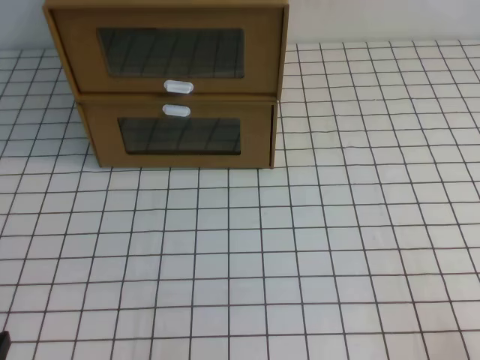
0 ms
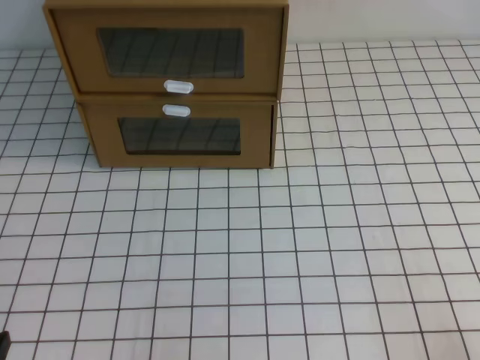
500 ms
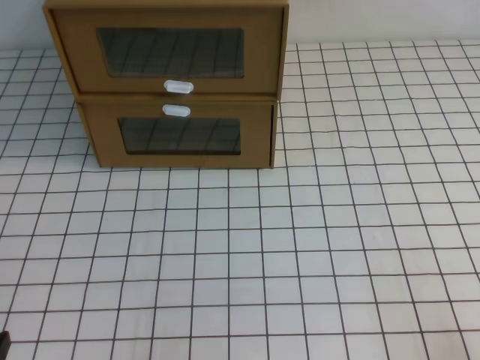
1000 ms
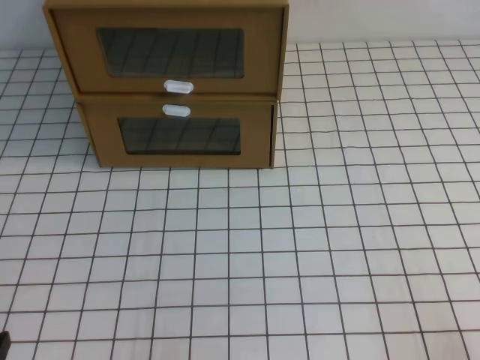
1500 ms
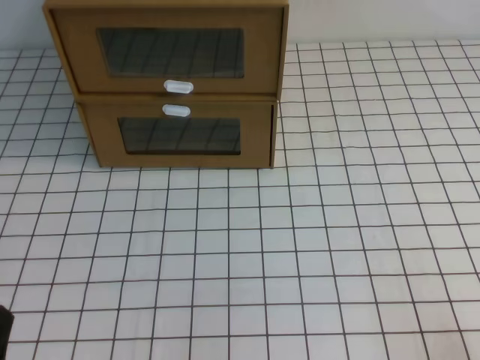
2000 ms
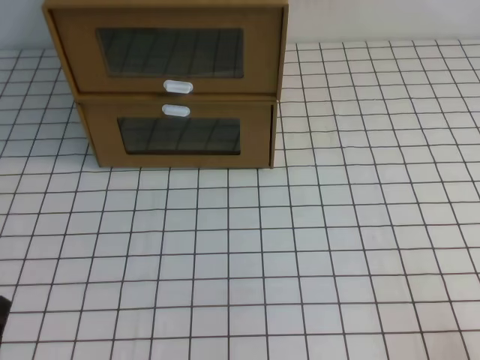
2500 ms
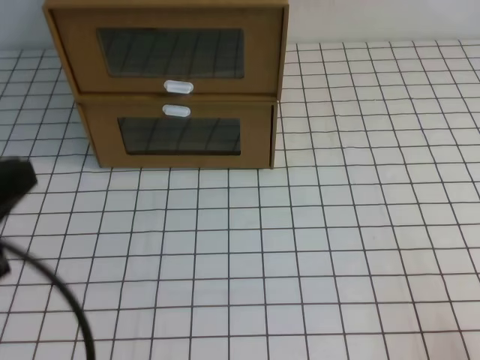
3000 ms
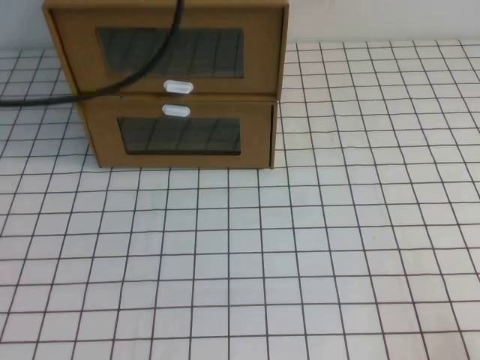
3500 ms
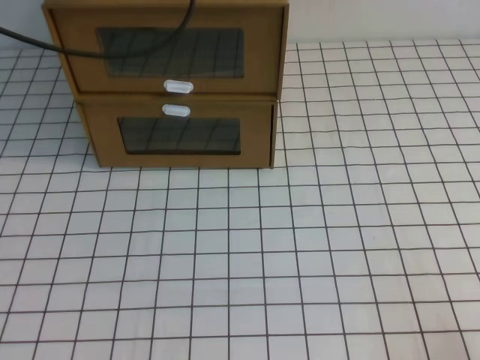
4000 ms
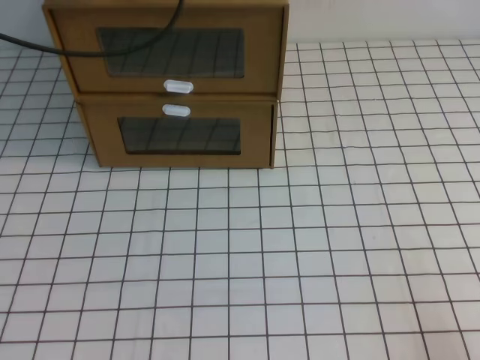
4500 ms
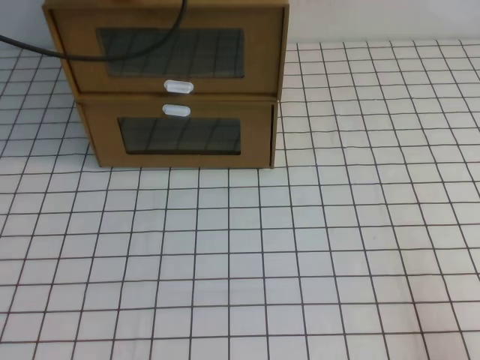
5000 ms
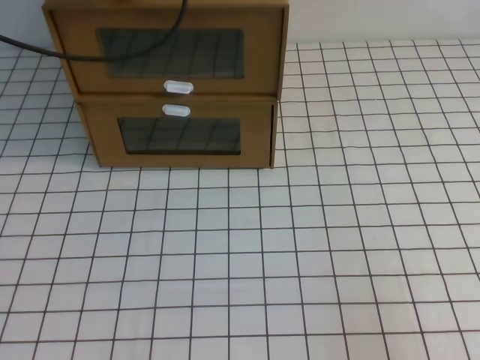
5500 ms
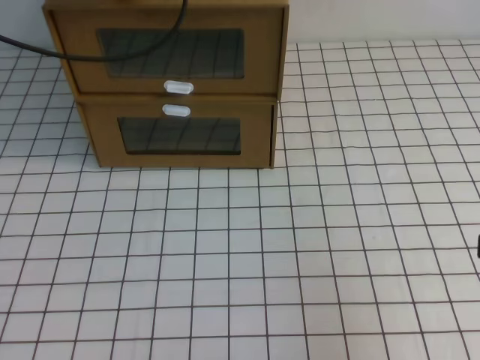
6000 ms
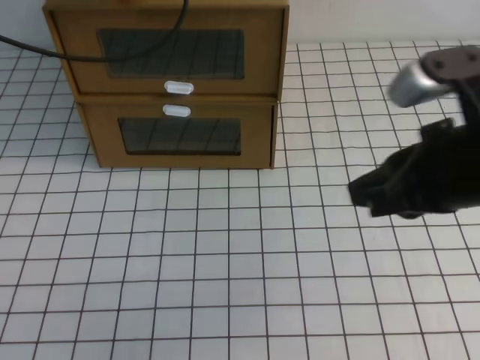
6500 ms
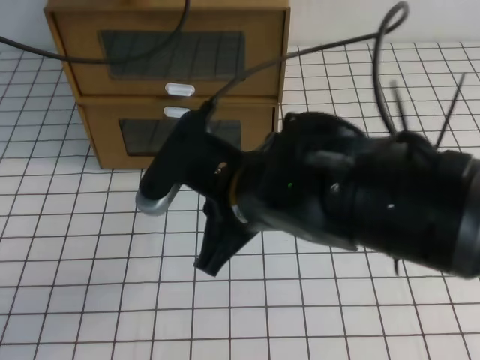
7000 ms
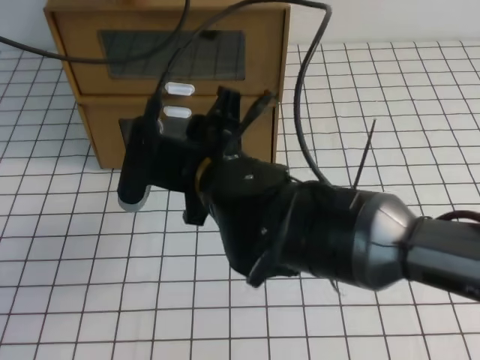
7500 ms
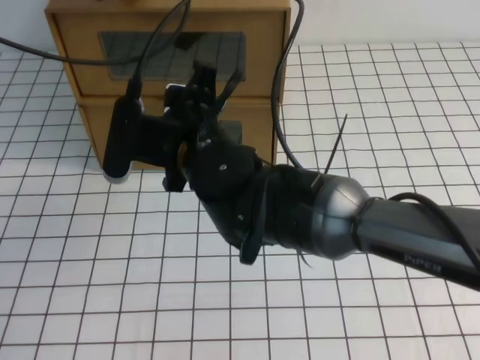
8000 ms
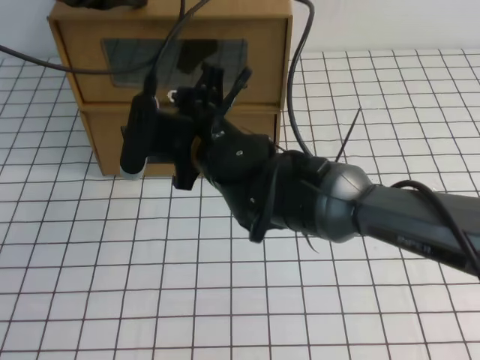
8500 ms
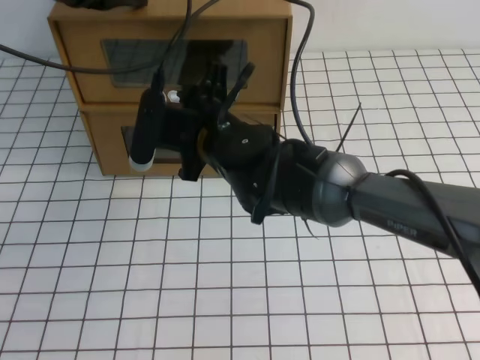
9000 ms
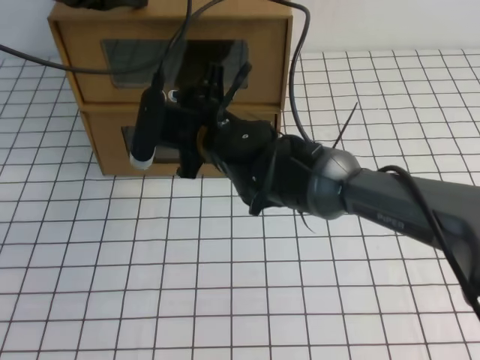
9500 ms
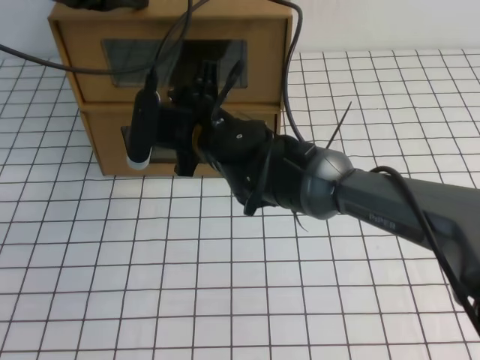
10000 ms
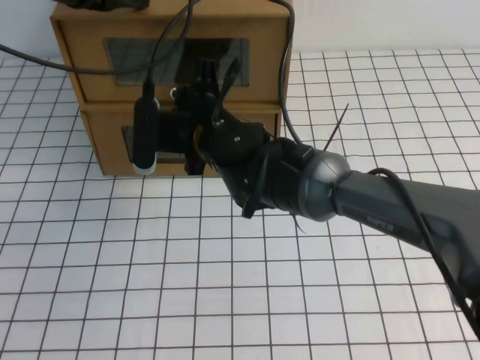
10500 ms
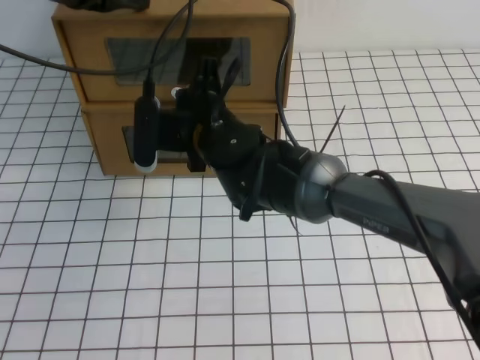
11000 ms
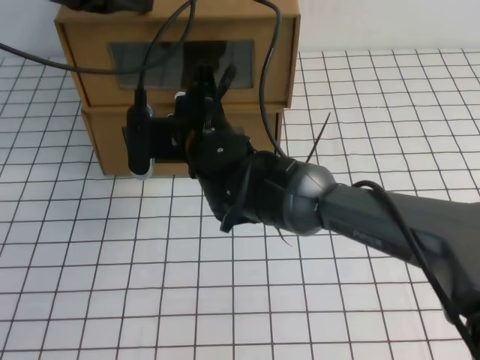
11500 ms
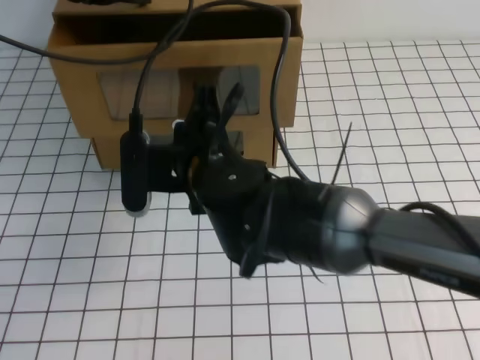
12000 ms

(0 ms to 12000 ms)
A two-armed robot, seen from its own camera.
Task of the whole recording: open the shoebox on the white tablecloth.
2000 ms - 4000 ms: The left gripper shifts some 40 cm forward and upward.
4000 ms - 6000 ms: The right gripper moves upward and forward, about 15 cm; the left gripper changes place by approximately 5 cm.
6000 ms - 8000 ms: The right gripper moves to the left and forward, approximately 35 cm, and opens.
8000 ms - 10000 ms: The right gripper travels forward by roughly 5 cm.
10000 ms - 12000 ms: The right gripper shifts some 10 cm backward, and closes up.

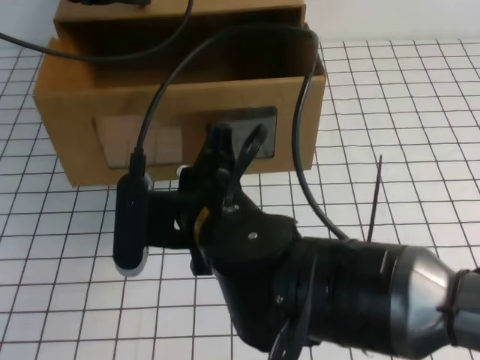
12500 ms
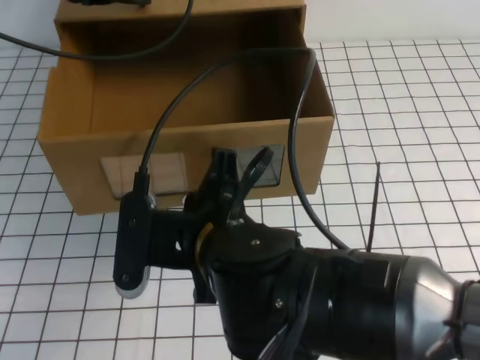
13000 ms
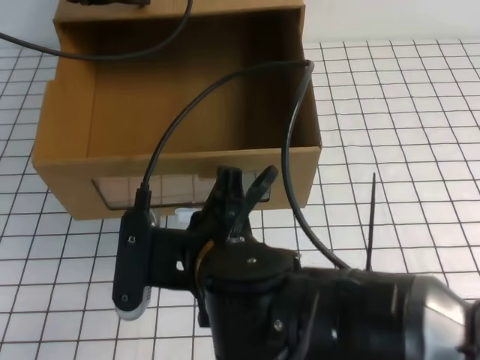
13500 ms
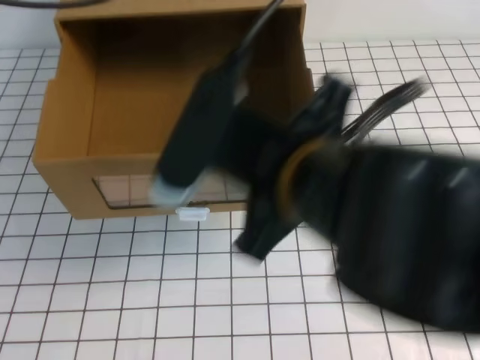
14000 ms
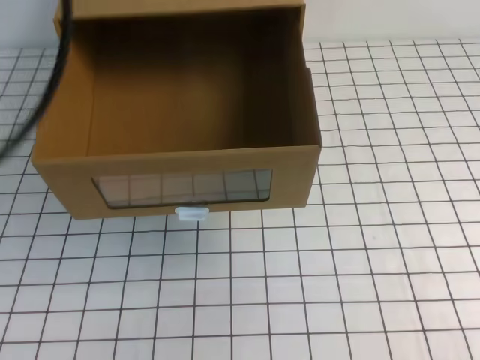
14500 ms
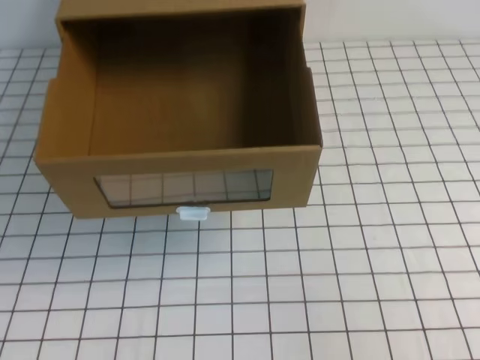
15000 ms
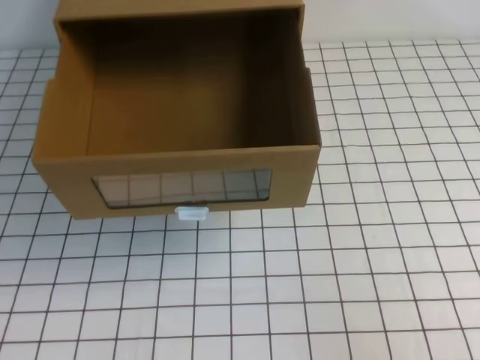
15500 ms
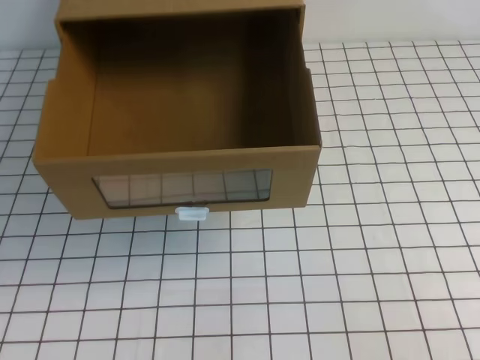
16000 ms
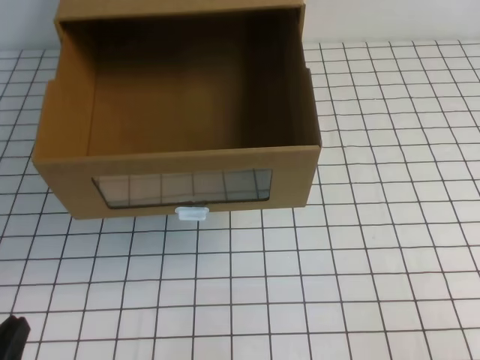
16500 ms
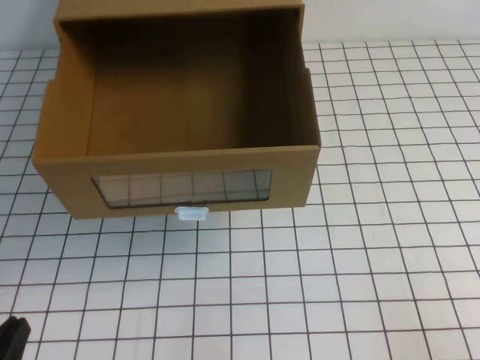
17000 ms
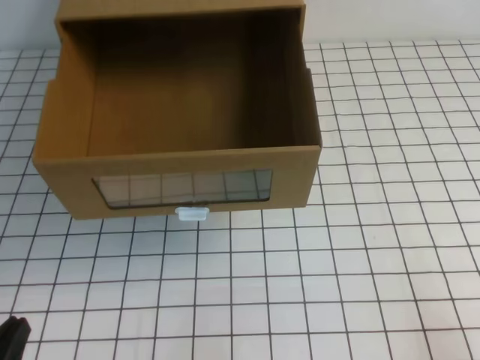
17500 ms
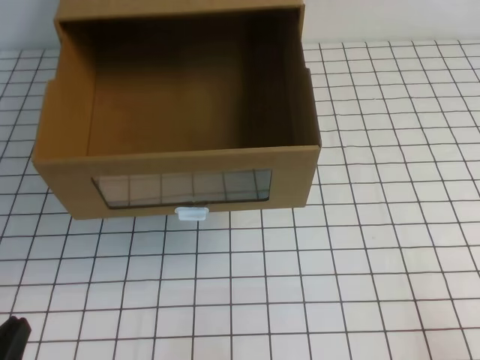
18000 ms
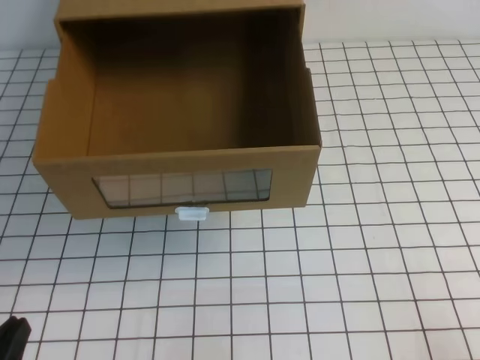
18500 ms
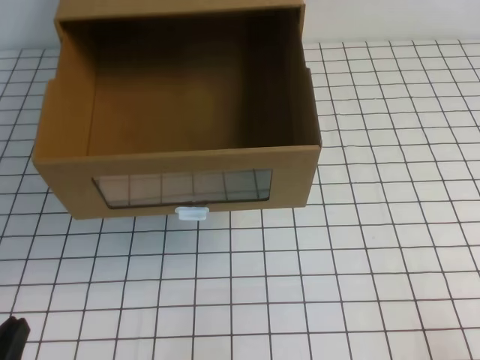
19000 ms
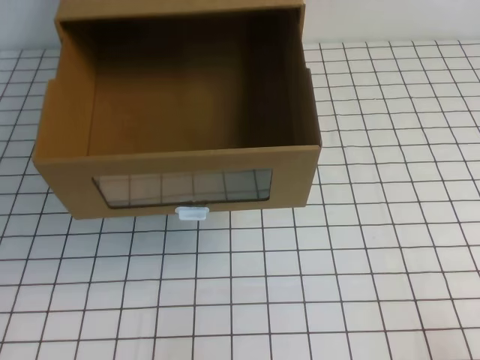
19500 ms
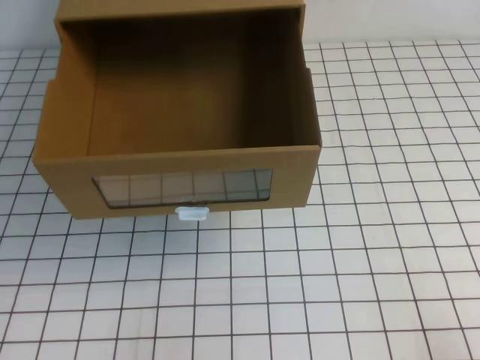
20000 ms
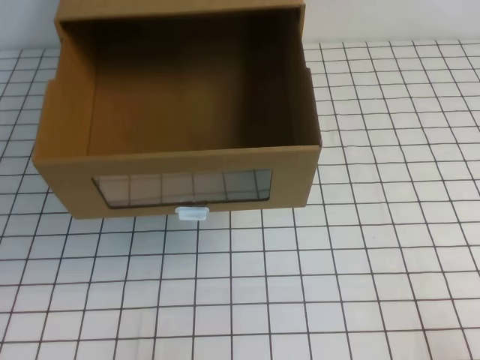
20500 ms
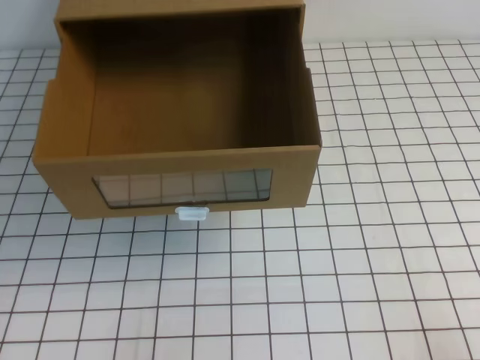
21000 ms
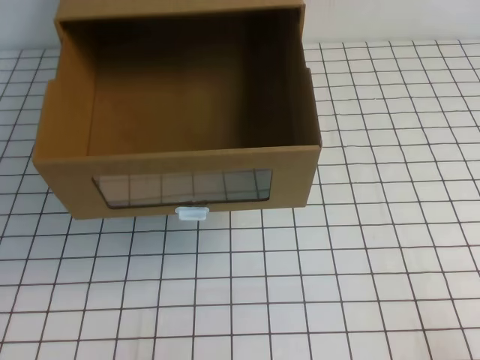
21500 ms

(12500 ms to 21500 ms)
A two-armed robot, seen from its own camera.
Task of the whole recording: open the shoebox on the white tablecloth.
Step, 12500 ms - 21500 ms: Open the shoe box.
12500 ms - 14500 ms: The left gripper is displaced backward and upward by some 30 cm. The right gripper heads to the right and upward, covering about 30 cm.
14500 ms - 17000 ms: The left gripper shifts some 35 cm downward; the right gripper heads downward and backward, covering roughly 25 cm.

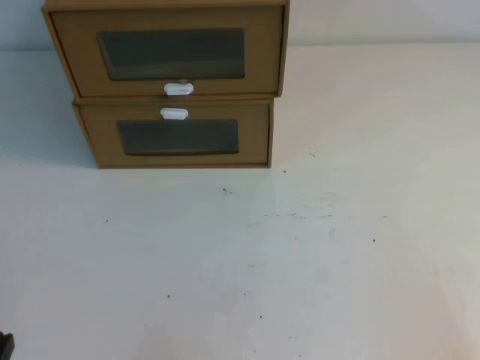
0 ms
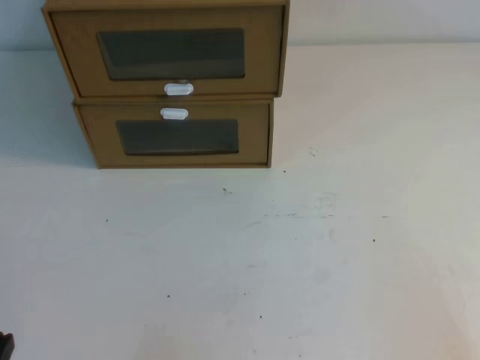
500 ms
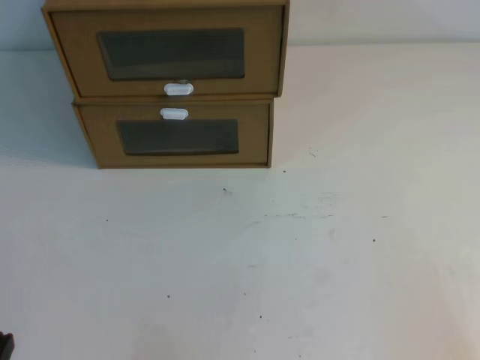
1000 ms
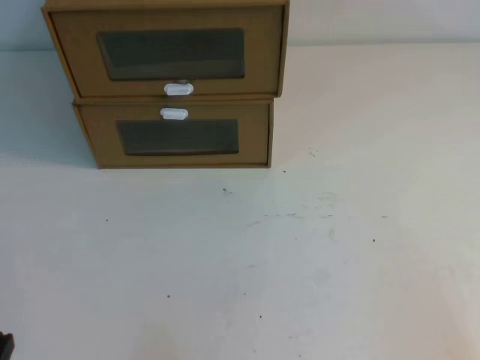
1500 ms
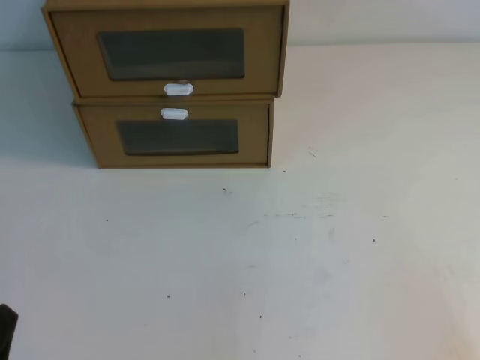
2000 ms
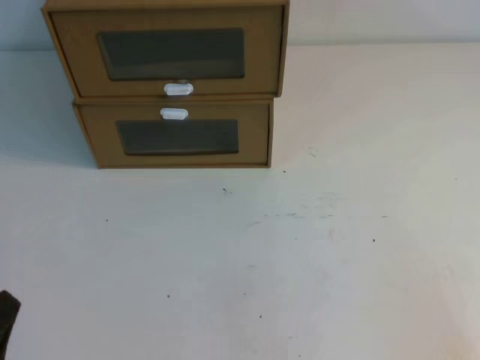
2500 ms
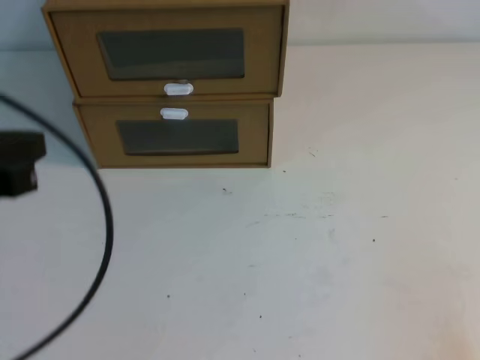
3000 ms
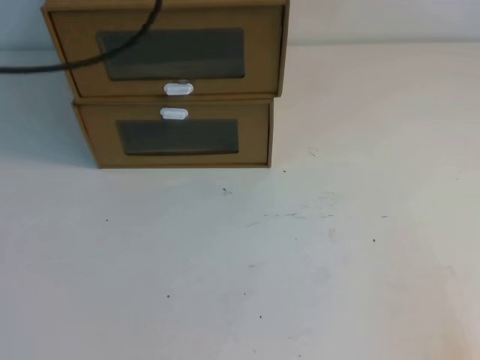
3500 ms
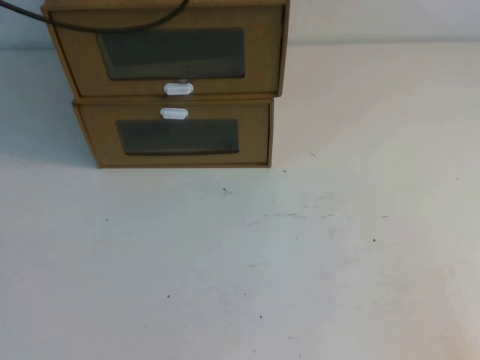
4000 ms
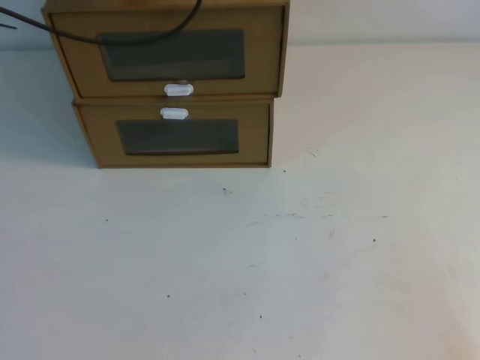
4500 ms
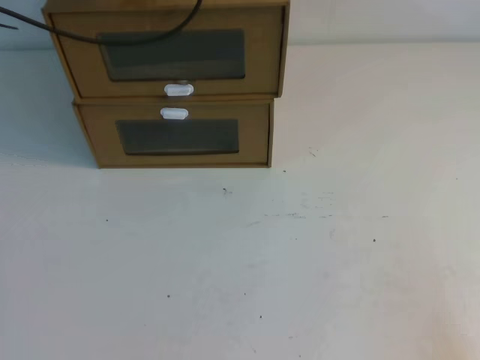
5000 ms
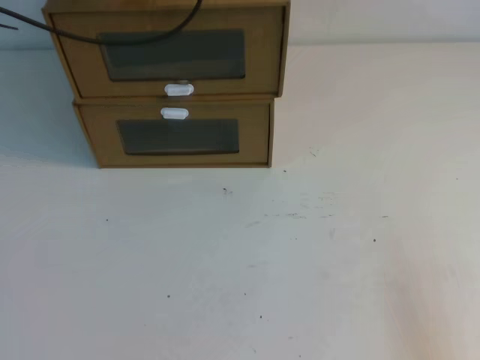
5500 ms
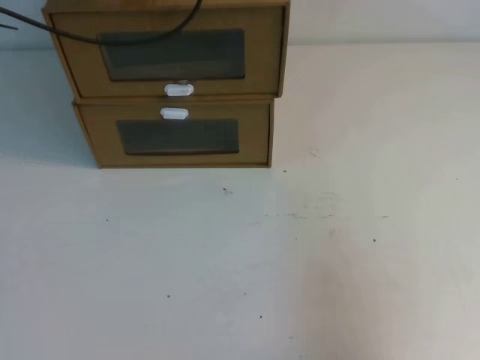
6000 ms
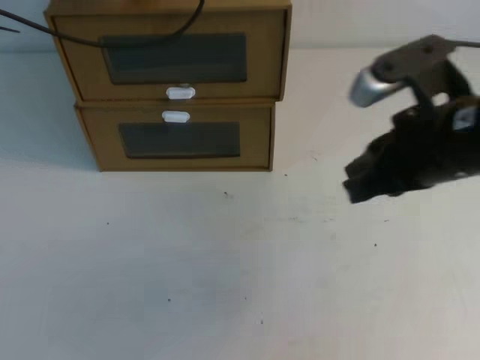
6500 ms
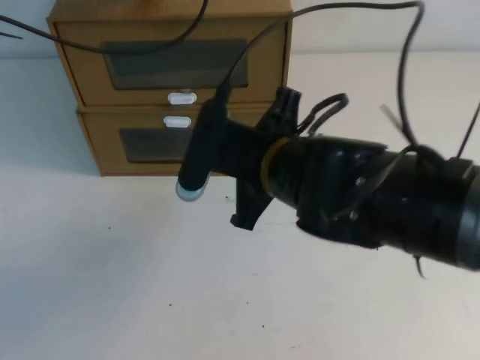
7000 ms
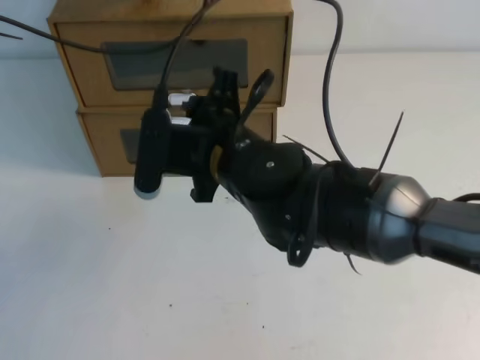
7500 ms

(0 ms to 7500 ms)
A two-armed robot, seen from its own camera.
Task of the whole recording: open the shoebox on the table.
2000 ms - 4000 ms: The left gripper moves forward and upward, roughly 50 cm.
5500 ms - 7500 ms: The right gripper moves to the left and forward, approximately 40 cm, and opens its fingers.
